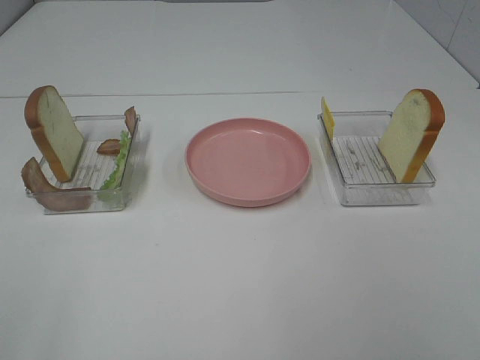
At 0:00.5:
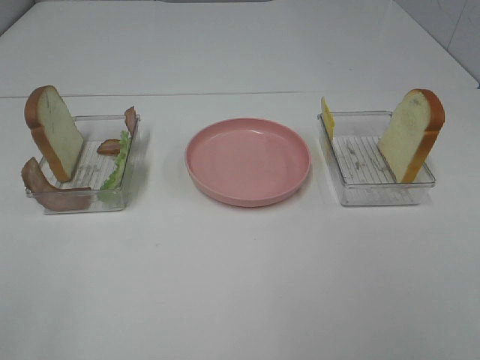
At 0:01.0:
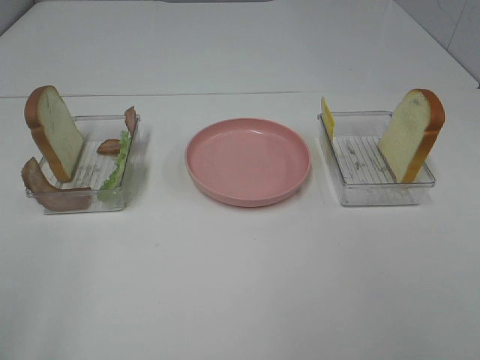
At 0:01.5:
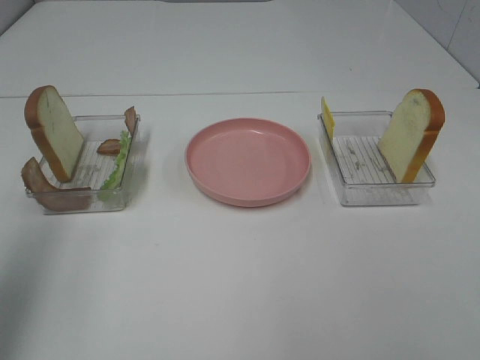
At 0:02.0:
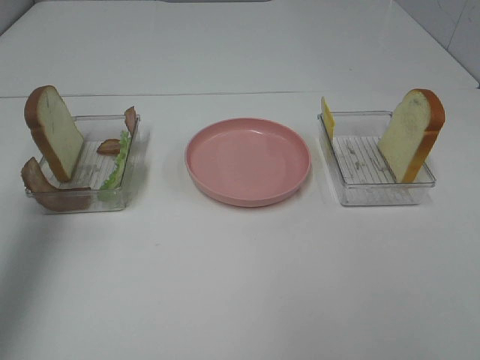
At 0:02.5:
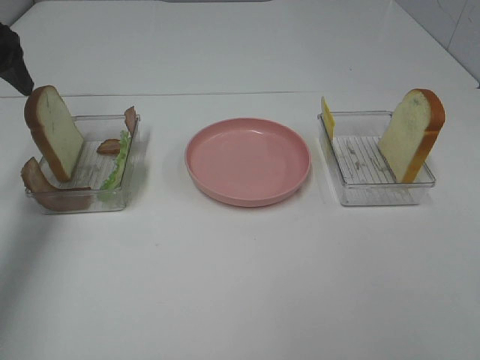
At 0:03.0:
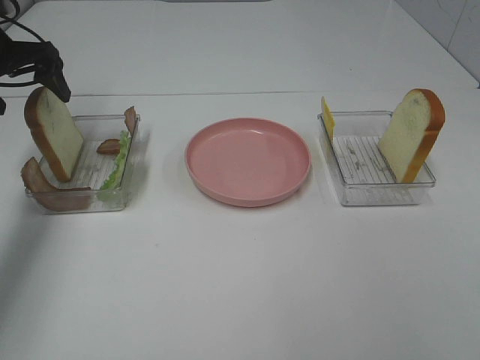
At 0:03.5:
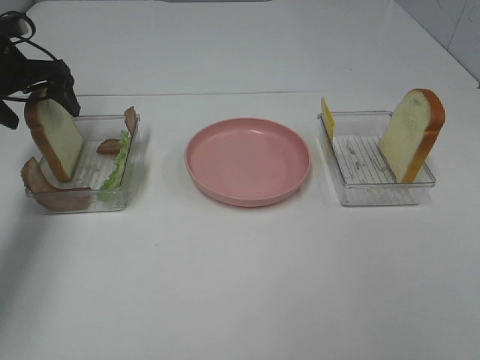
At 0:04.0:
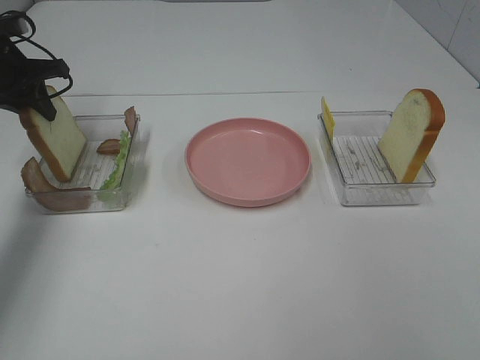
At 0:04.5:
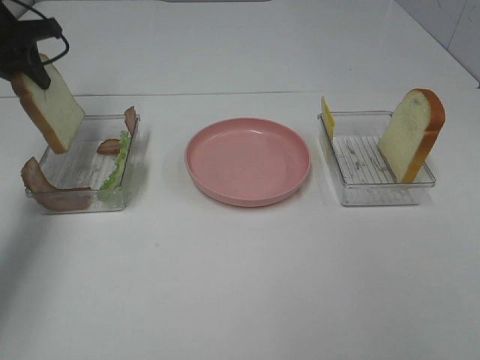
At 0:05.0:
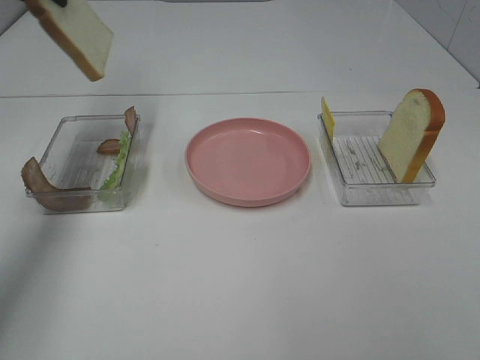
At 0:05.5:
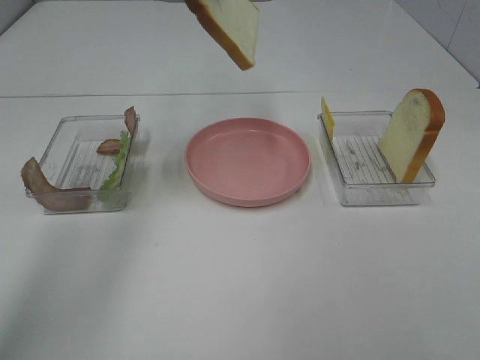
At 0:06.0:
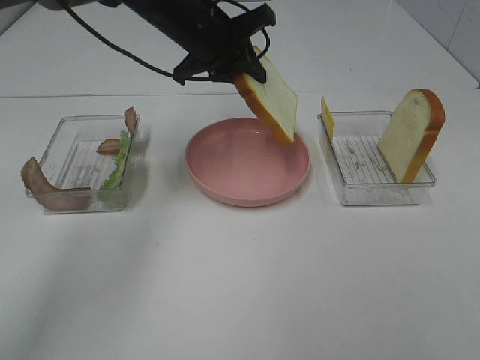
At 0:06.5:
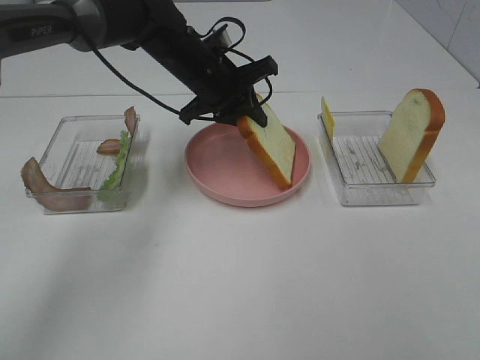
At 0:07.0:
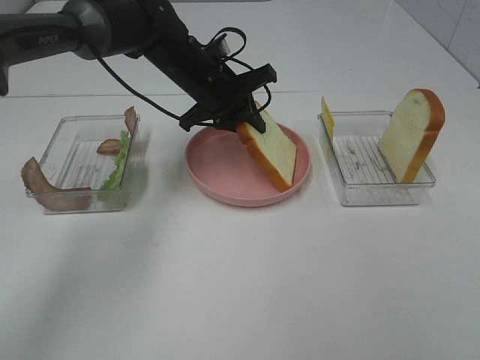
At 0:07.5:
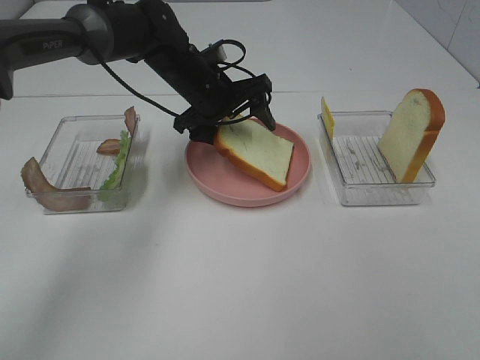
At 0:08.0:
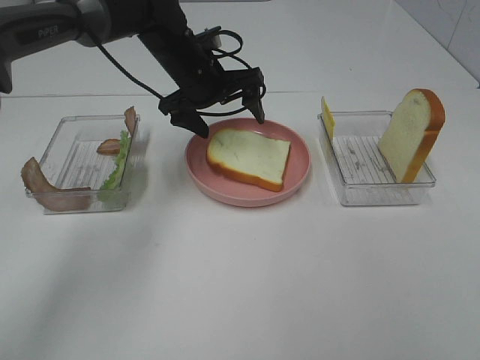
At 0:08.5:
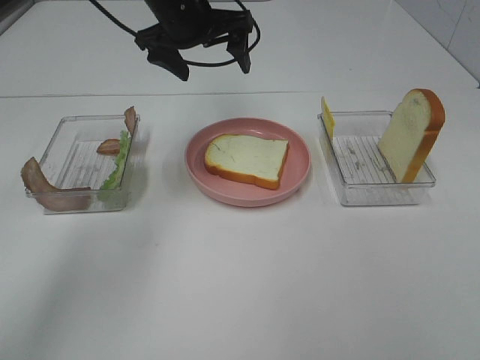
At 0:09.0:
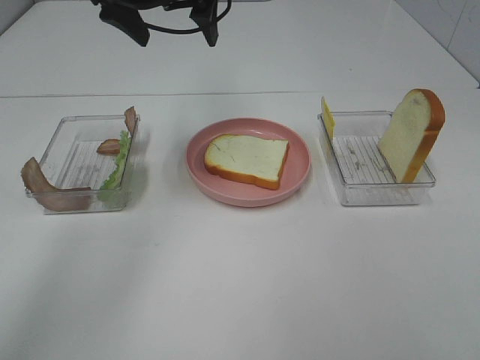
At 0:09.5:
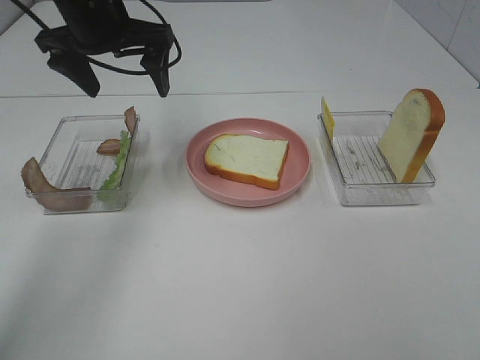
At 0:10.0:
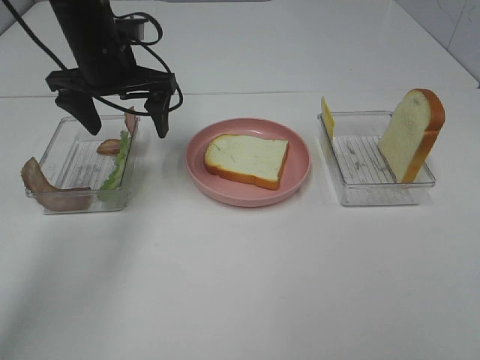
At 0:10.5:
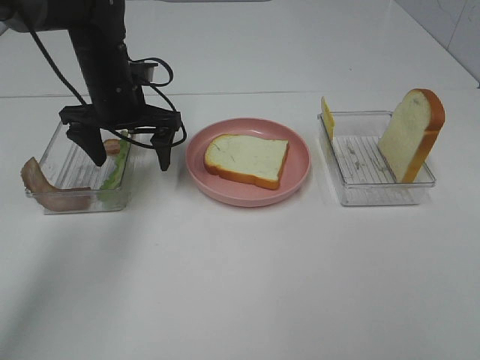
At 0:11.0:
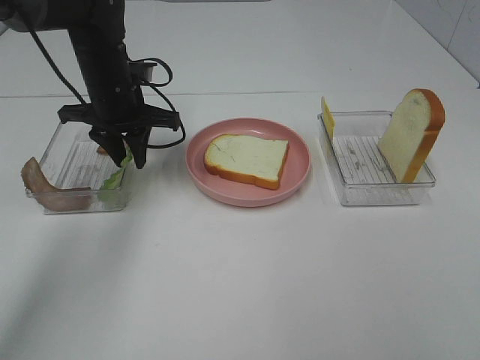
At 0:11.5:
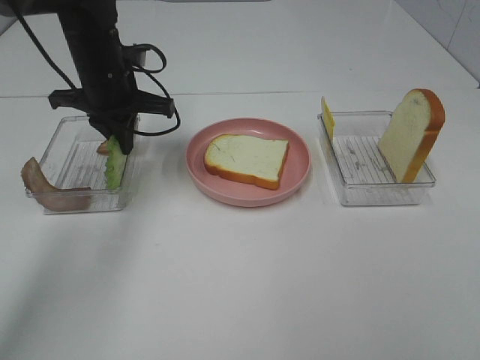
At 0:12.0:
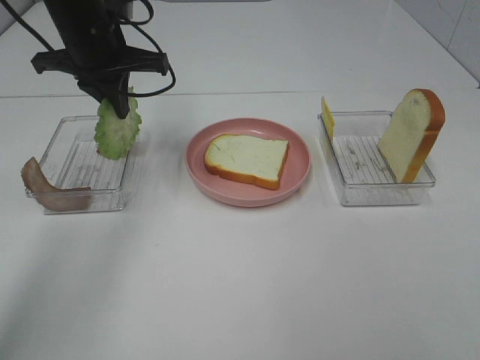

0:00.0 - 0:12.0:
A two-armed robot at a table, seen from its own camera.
Task of the whole recording: Make sandwiches.
Step, 0:00.0 - 0:04.0: Left hand:grab the bread slice.
Step, 0:04.5 - 0:08.0: Left hand:place the bread slice on the plate.
Step, 0:08.5 - 0:11.5: Left hand:grab the lettuce slice.
0:00.0 - 0:02.0: The left gripper moves forward, some 30 cm.
0:02.0 - 0:04.0: The left gripper heads forward and downward, covering about 25 cm, and closes.
0:04.0 - 0:06.0: The left gripper heads to the right, covering some 25 cm.
0:06.0 - 0:08.0: The left gripper goes roughly 5 cm downward, and opens up.
0:08.0 - 0:10.0: The left gripper heads to the left, covering approximately 10 cm, and reaches some 15 cm upward, then returns.
0:10.0 - 0:12.0: The left gripper closes its fingers.

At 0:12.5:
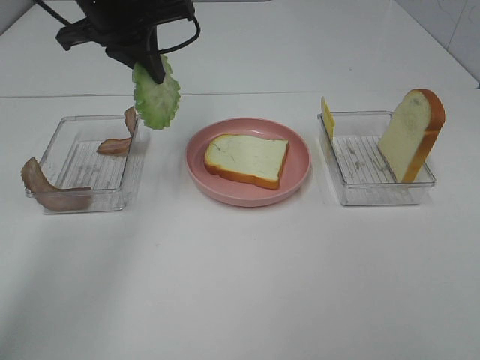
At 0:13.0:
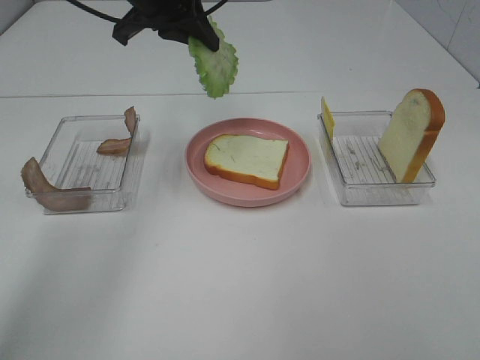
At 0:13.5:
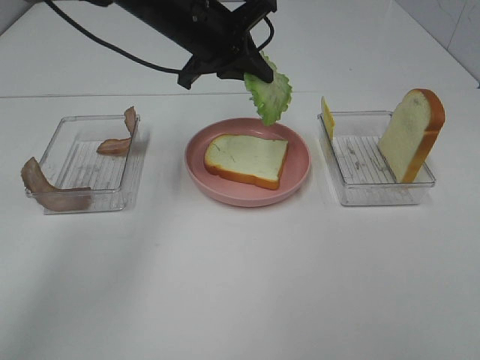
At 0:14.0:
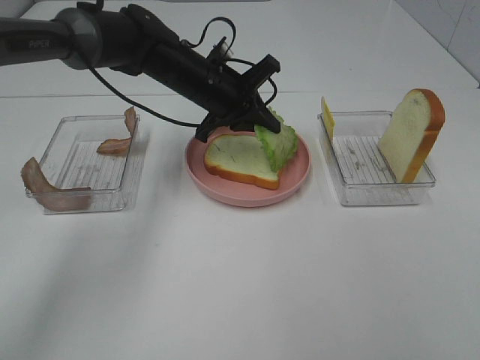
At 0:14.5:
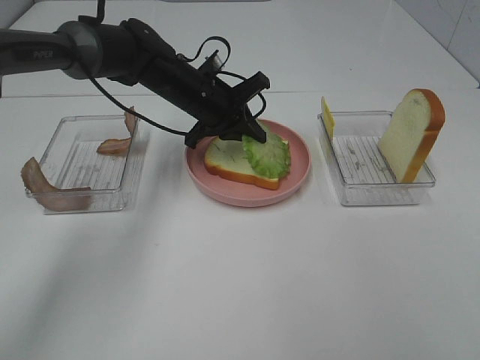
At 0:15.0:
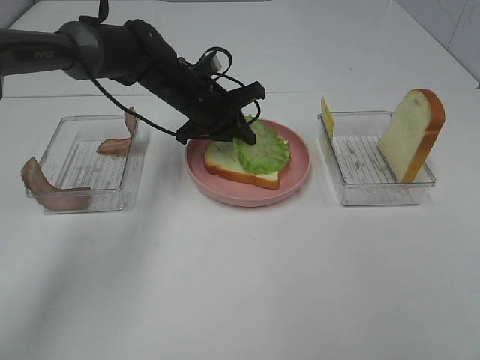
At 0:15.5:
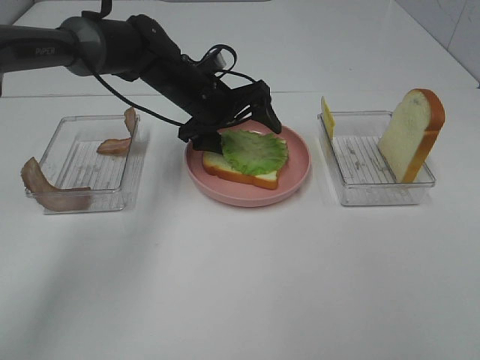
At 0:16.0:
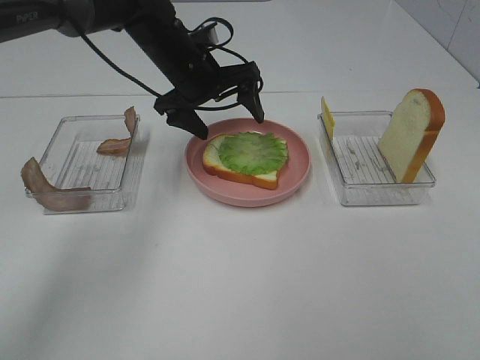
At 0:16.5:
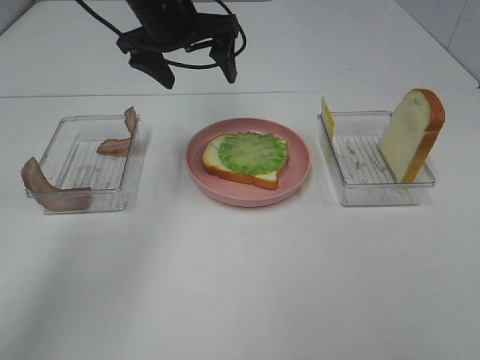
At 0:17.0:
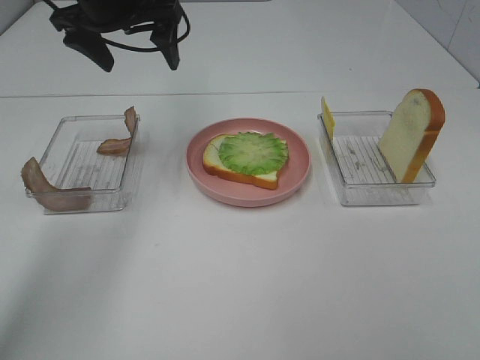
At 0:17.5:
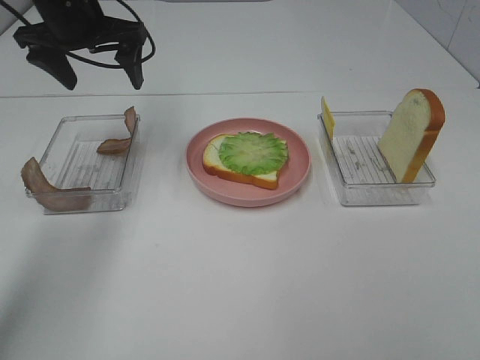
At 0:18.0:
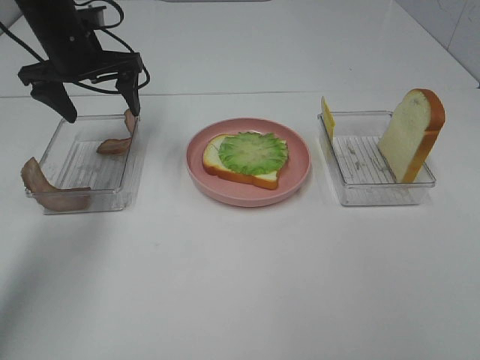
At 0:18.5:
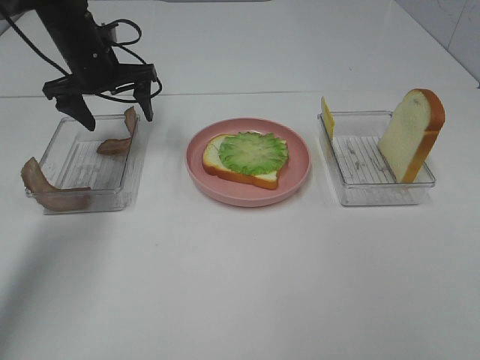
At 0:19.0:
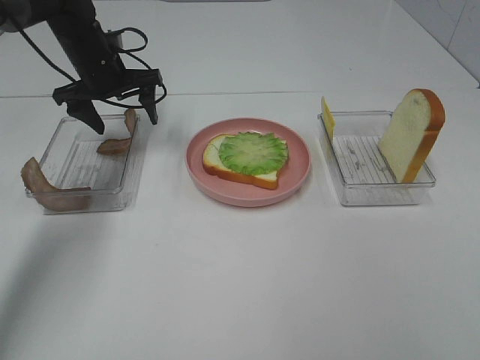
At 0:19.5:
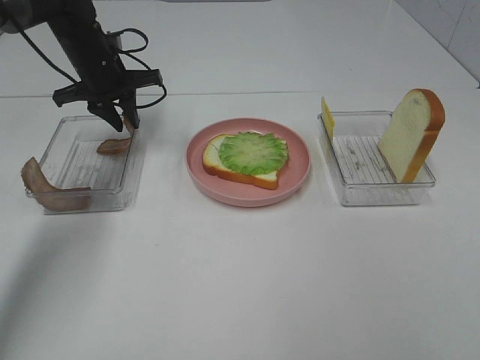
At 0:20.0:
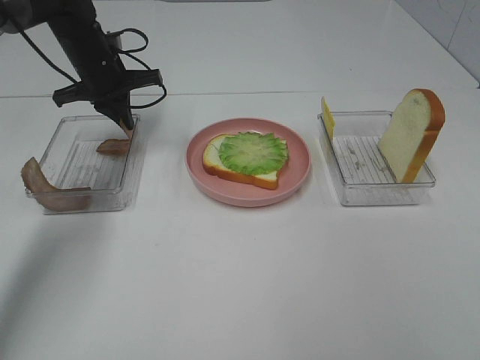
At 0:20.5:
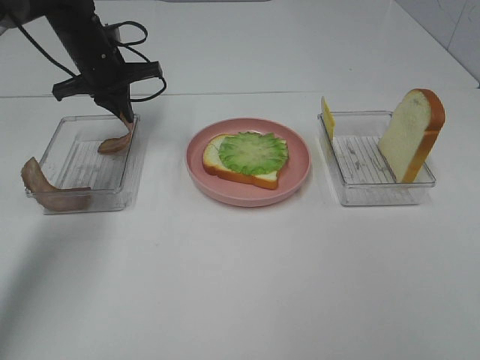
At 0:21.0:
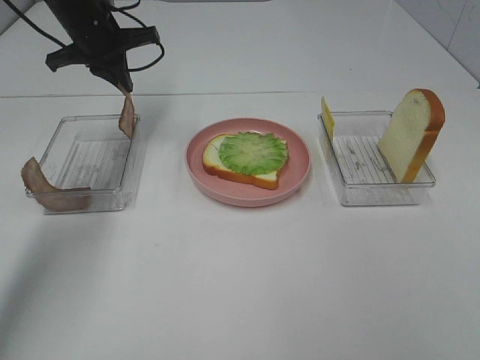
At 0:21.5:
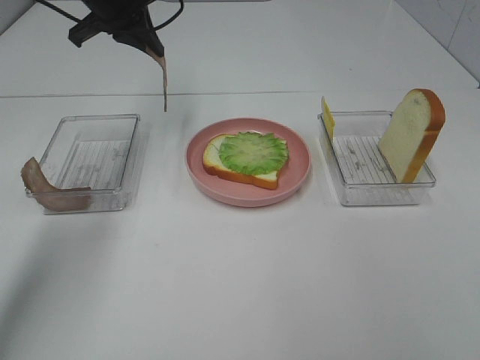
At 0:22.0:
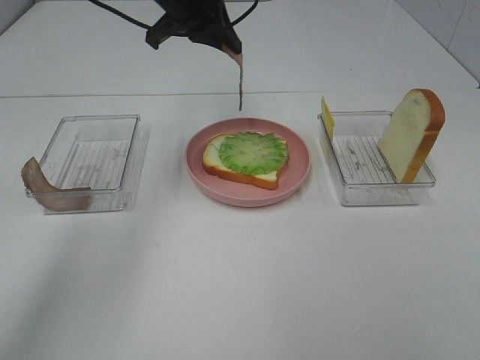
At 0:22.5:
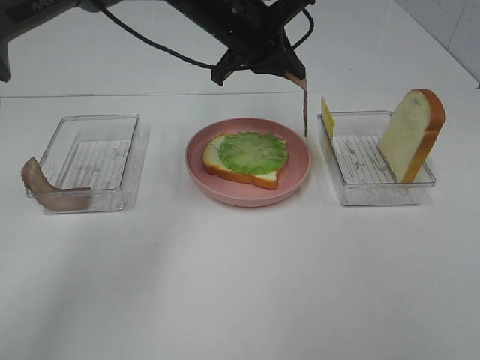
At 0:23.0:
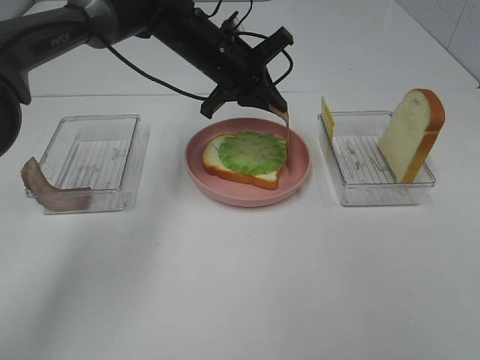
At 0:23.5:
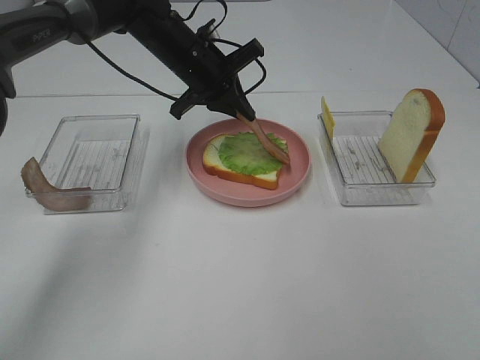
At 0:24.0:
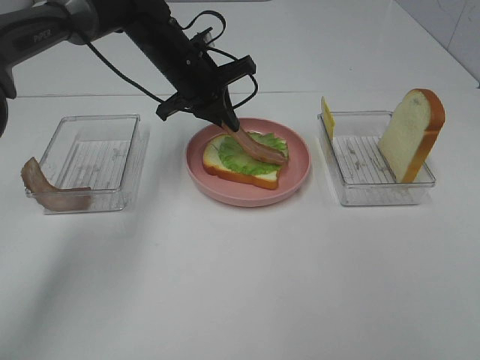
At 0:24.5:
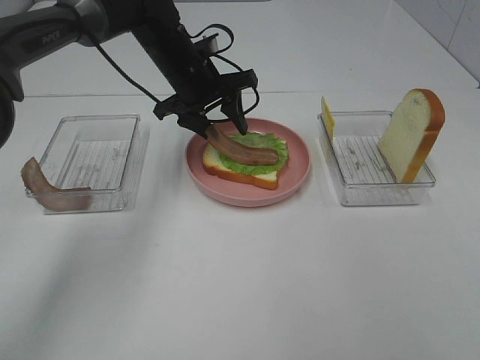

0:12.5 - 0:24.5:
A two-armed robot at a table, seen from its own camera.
Task of the whole recording: Make sandwiches.
Step, 0:12.5 - 0:16.0: Left hand:place the lettuce slice on the bread slice.
Step, 0:16.5 - 0:20.5: Left hand:grab the bacon.
0:12.5 - 0:14.5: The left gripper shifts some 20 cm downward and to the right.
0:14.5 - 0:16.5: The left gripper moves upward, about 15 cm, and opens its fingers.
0:16.5 - 0:18.5: The left gripper moves to the left and downward, roughly 15 cm.
0:18.5 - 0:20.5: The left gripper closes up.
0:20.5 - 0:22.5: The left gripper is displaced to the right by some 20 cm.
0:22.5 - 0:24.5: The left gripper shifts approximately 10 cm downward and to the left, and opens.

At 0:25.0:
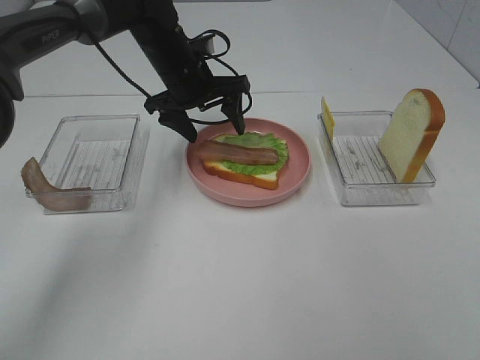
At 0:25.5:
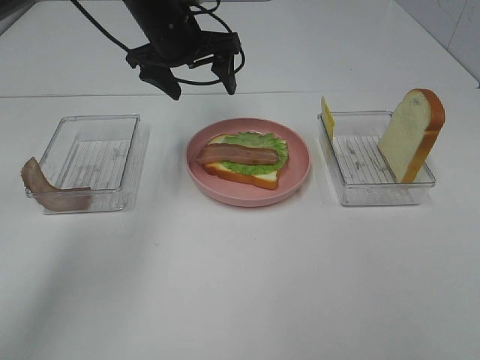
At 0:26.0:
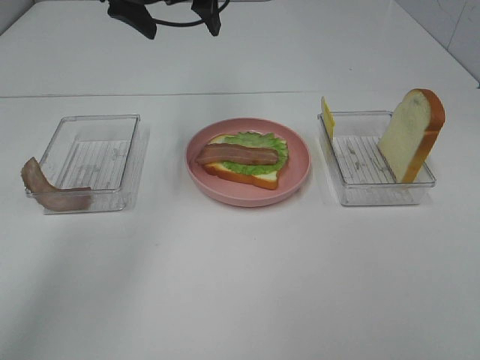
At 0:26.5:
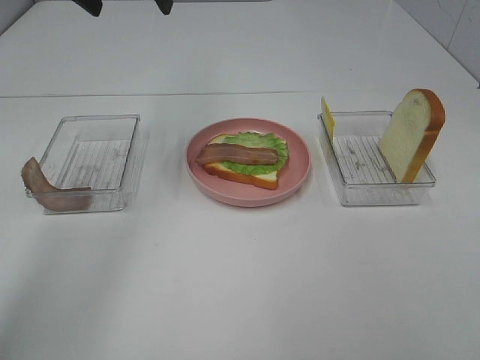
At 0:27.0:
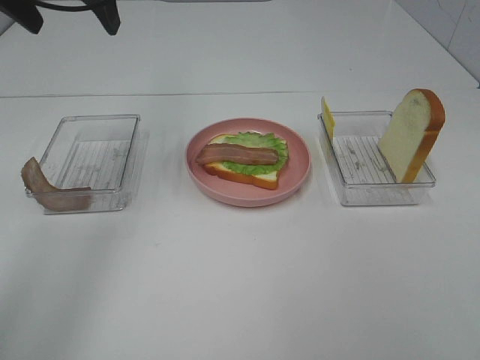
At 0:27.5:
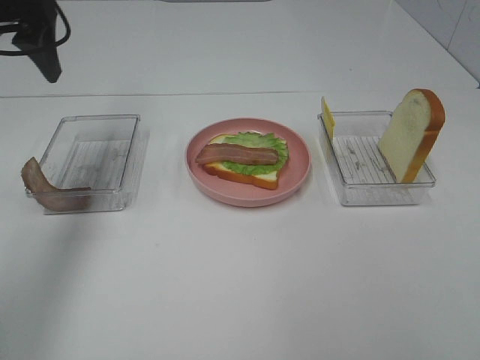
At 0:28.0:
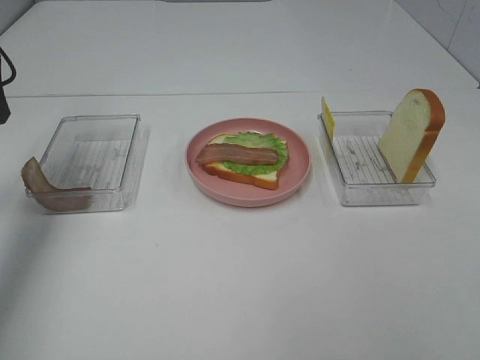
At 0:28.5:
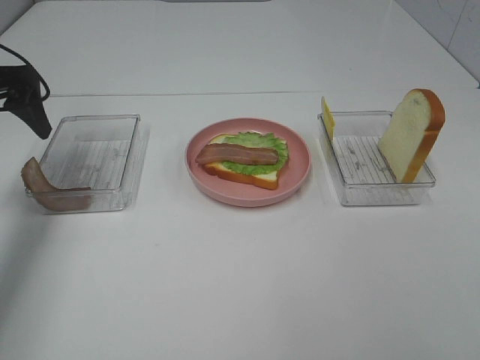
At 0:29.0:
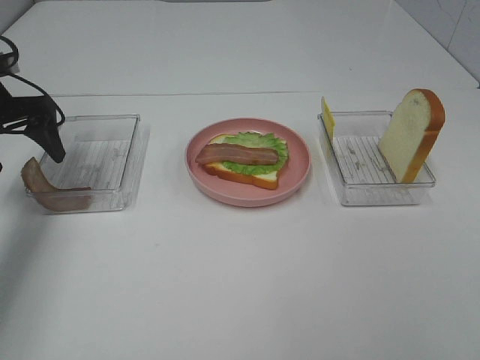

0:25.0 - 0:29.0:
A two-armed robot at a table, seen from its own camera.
Task of the whole recording: Make sandwiches.
0:25.0 - 0:27.0: The left gripper is displaced upward, to the left and backward by roughly 25 cm.
0:27.0 - 0:29.0: The left gripper shifts about 20 cm downward and to the left.
